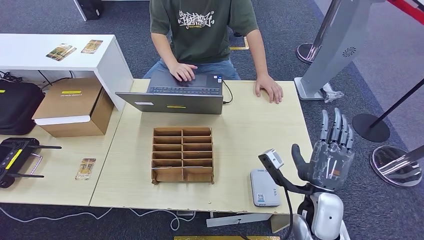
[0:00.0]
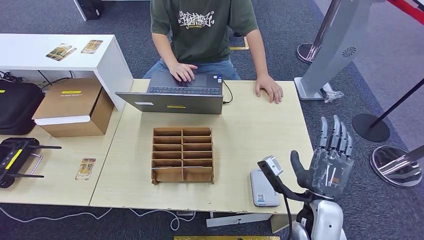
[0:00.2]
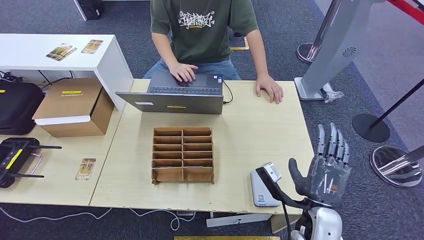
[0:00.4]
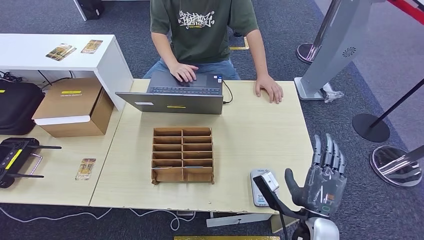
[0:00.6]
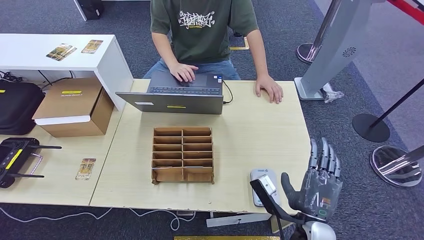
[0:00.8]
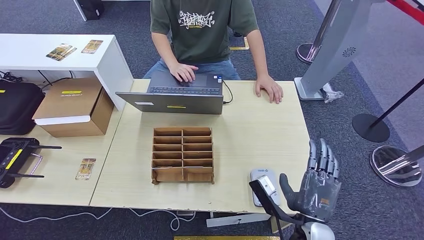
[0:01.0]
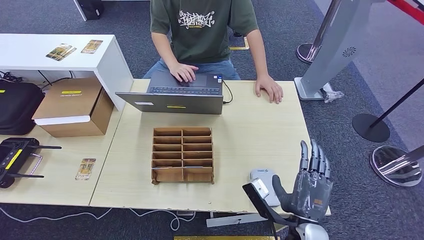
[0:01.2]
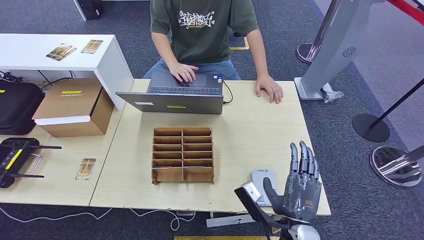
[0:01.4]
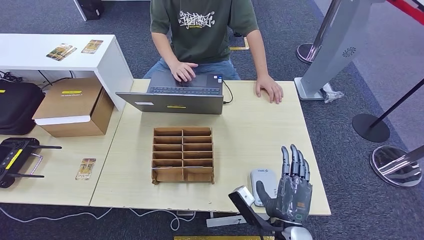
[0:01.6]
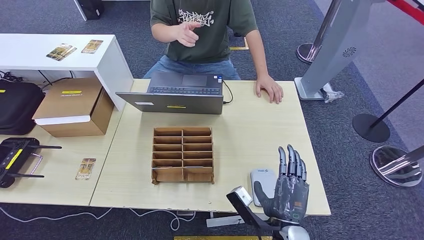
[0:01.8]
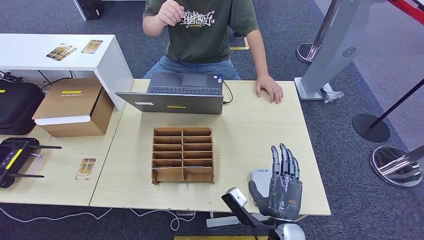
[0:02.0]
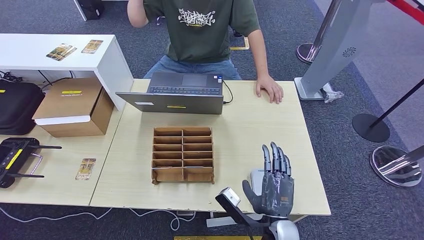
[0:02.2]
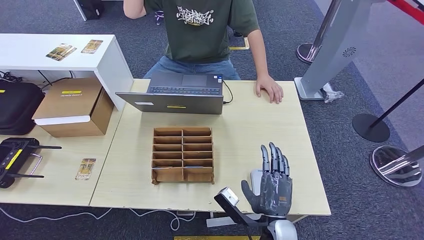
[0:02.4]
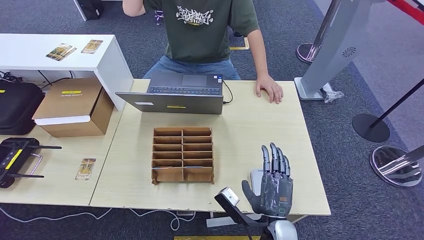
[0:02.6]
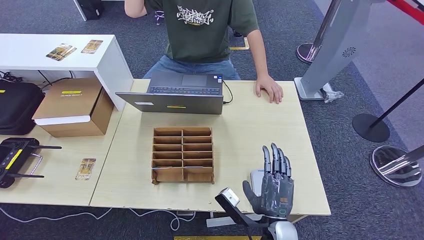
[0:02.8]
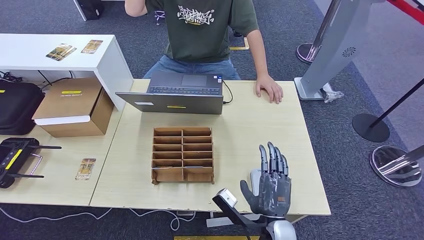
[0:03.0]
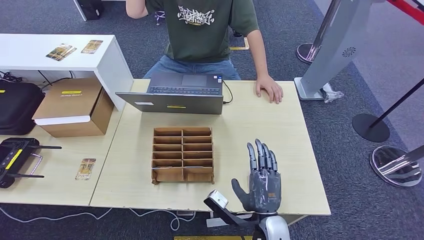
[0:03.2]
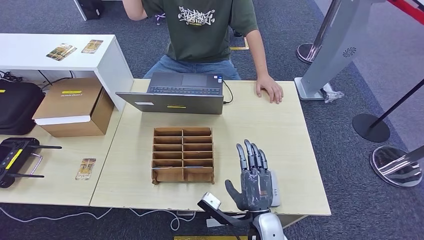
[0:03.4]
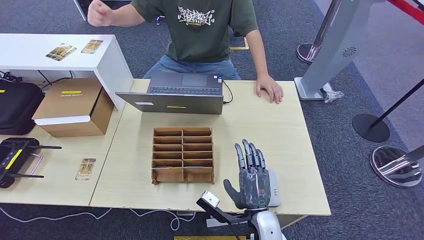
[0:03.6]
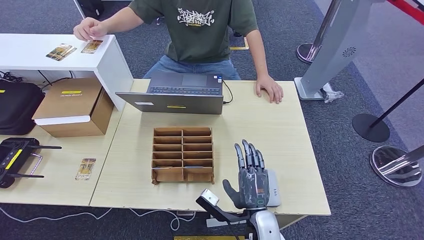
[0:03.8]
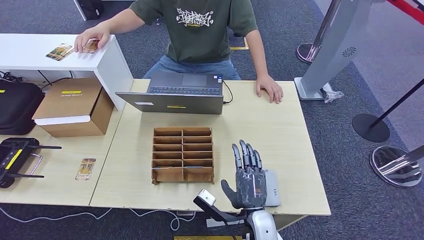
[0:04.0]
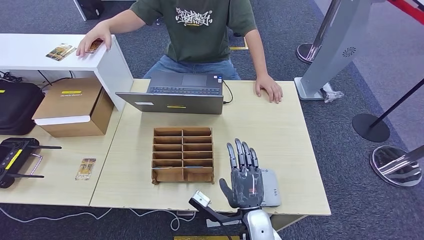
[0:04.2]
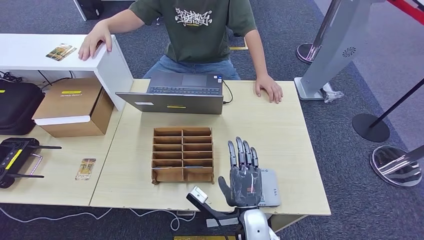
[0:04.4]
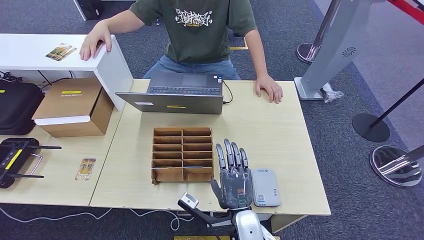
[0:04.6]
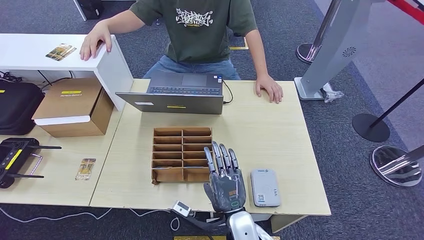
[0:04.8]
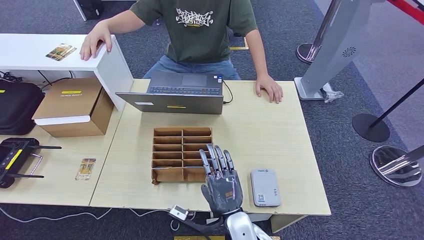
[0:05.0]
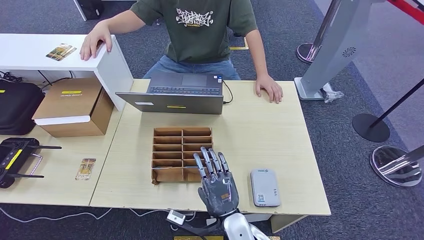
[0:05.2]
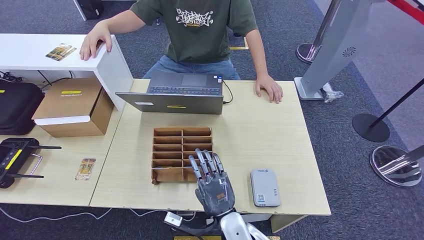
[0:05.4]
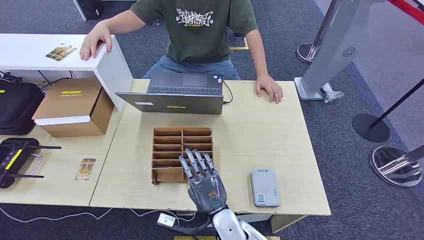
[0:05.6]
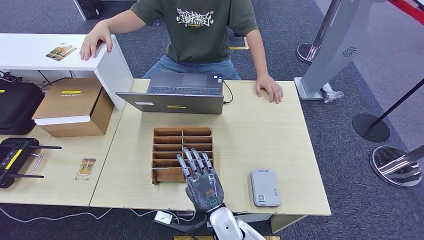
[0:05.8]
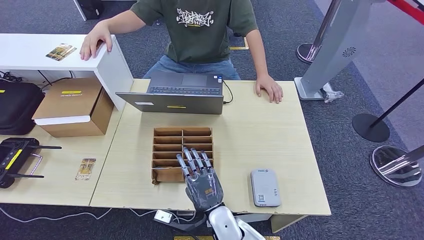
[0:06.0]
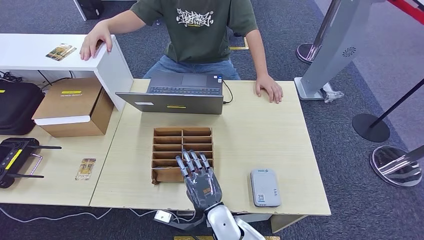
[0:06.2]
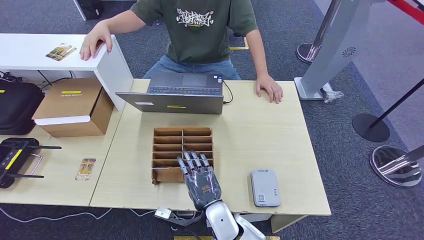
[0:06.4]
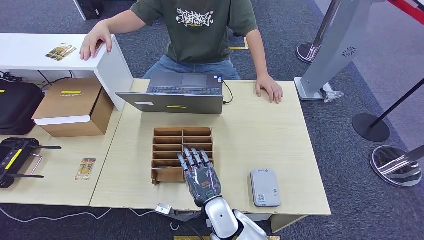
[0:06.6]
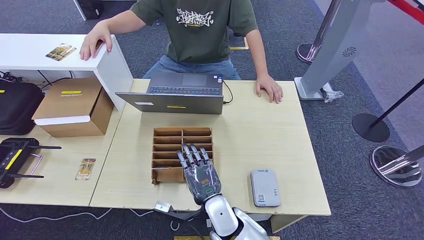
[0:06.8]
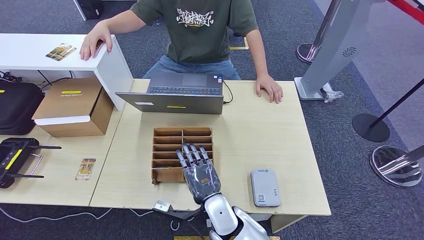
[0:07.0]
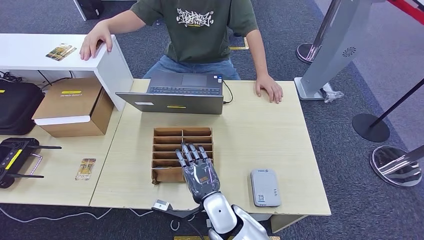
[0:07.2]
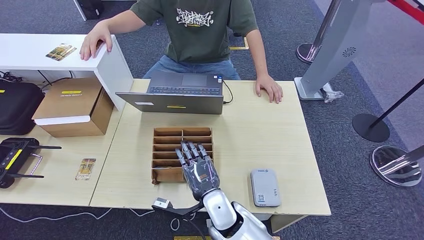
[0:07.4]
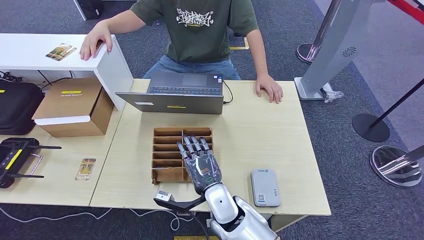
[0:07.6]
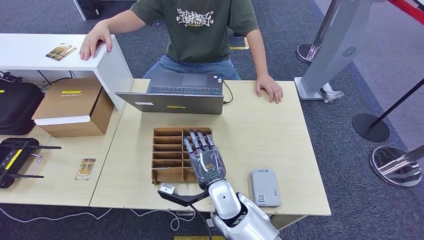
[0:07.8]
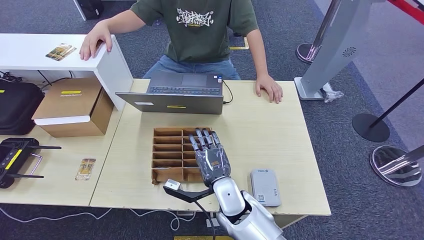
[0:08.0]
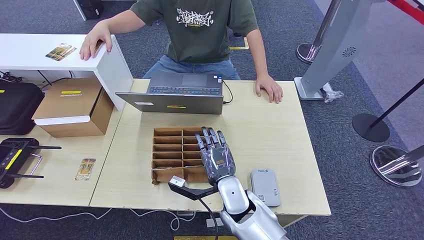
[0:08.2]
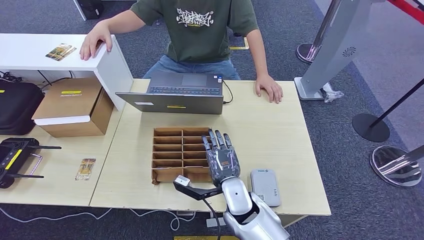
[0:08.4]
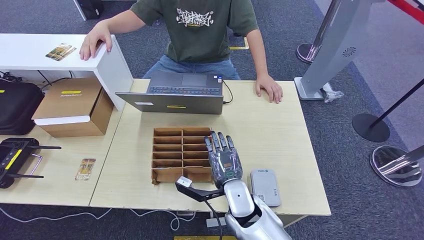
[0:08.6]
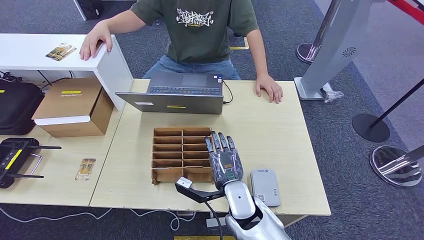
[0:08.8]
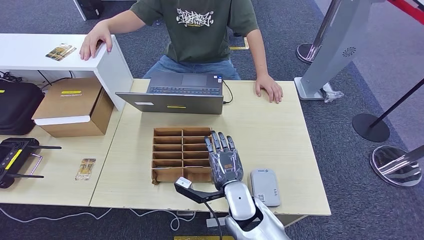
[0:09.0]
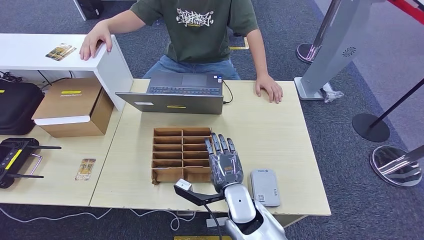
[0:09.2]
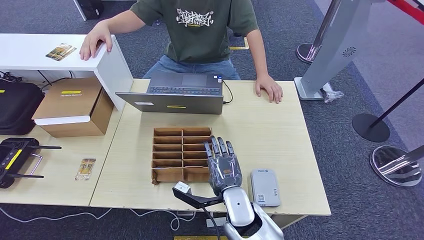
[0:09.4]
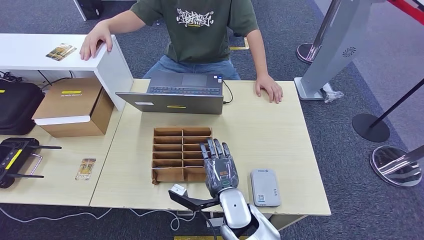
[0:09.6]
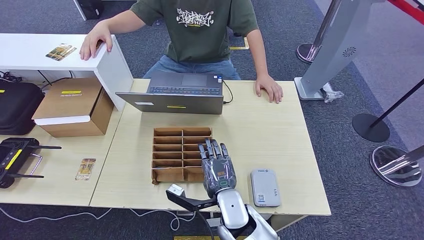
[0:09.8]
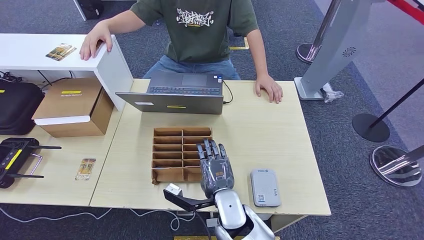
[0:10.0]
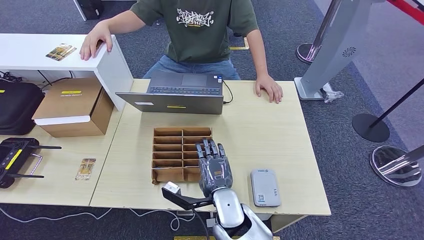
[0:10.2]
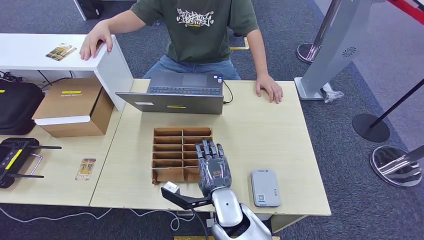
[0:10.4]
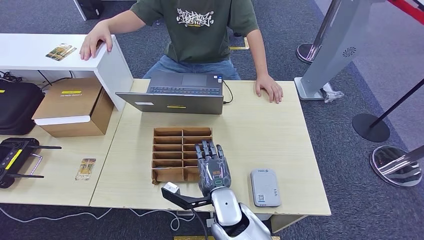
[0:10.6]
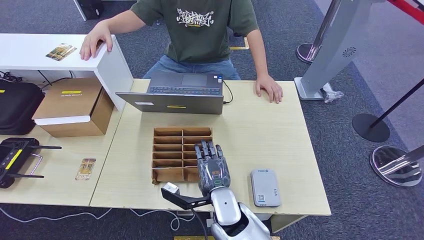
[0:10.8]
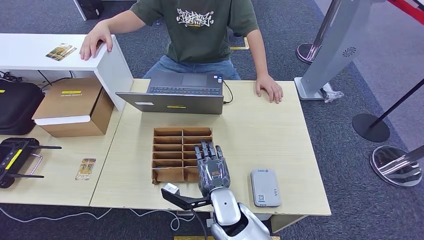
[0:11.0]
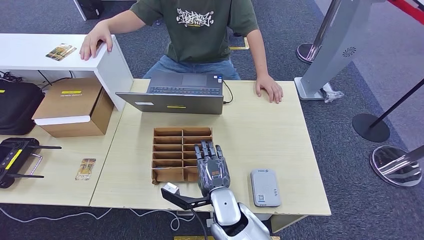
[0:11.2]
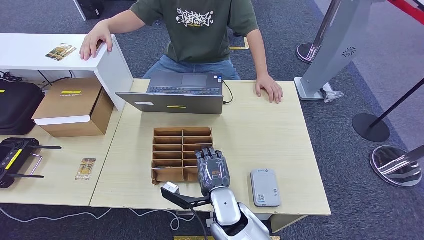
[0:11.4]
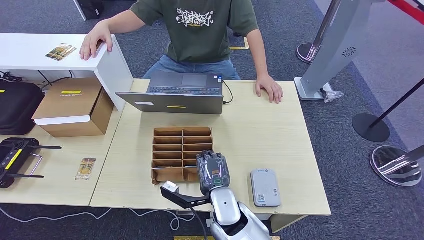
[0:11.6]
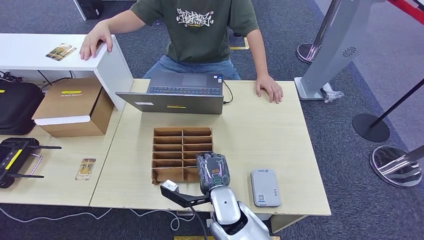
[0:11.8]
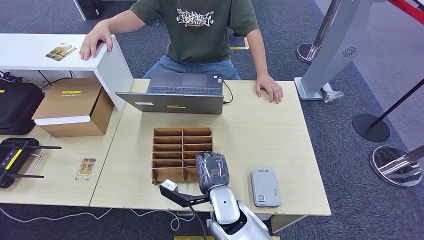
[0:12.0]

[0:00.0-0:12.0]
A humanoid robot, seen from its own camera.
0:00.0 to 0:01.6: The right hand moves backward and to the left, some 10 cm.
0:01.6 to 0:03.0: There are only small adjustments of the hands.
0:03.0 to 0:04.4: The right hand travels to the left by approximately 5 cm.
0:04.4 to 0:06.0: The right hand heads to the left, covering about 5 cm.
0:06.0 to 0:07.6: The right hand ends up roughly 5 cm from where it was.
0:07.6 to 0:10.4: There are only small adjustments of the hands.
0:10.4 to 0:12.0: Both hands stay about where they are.

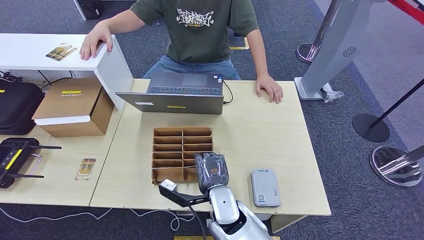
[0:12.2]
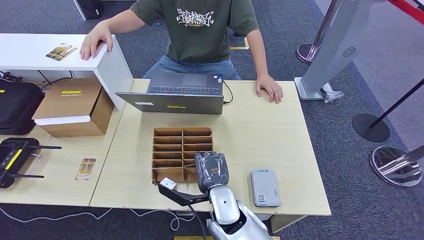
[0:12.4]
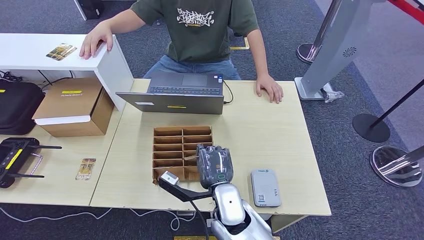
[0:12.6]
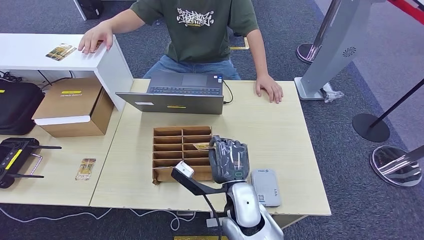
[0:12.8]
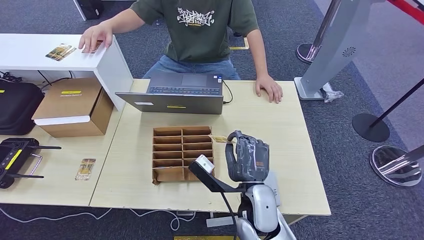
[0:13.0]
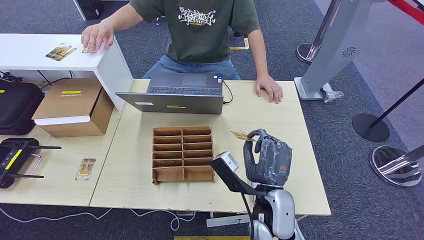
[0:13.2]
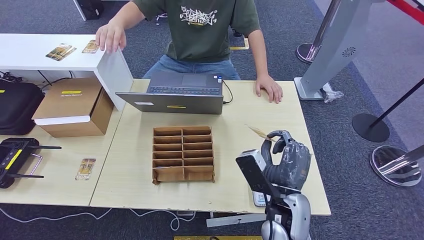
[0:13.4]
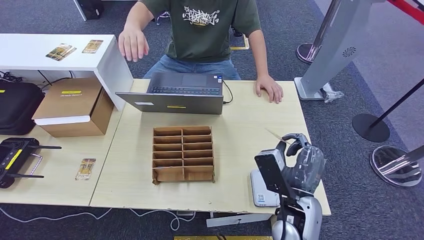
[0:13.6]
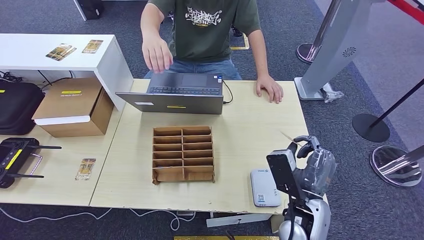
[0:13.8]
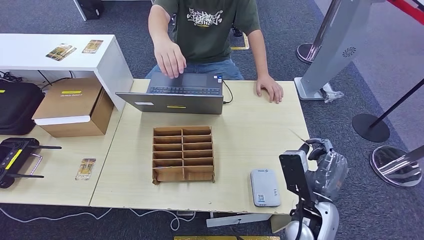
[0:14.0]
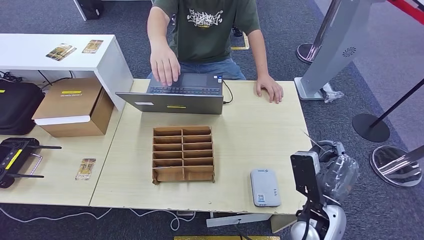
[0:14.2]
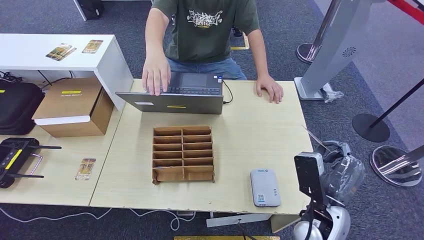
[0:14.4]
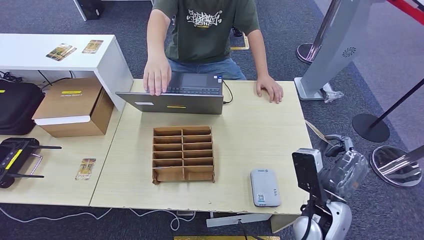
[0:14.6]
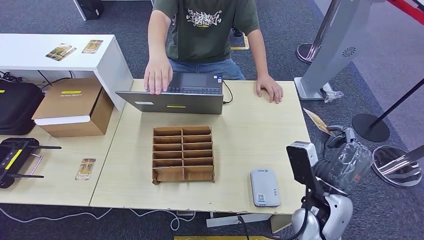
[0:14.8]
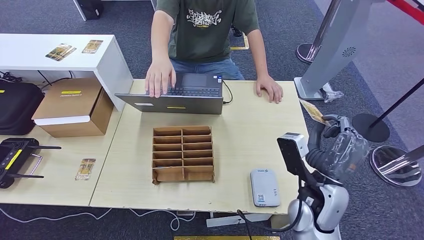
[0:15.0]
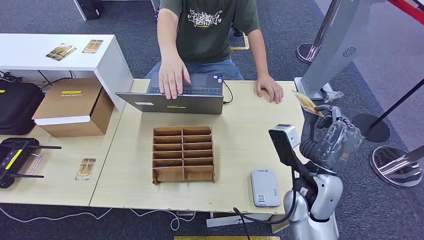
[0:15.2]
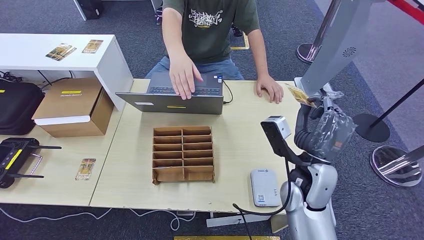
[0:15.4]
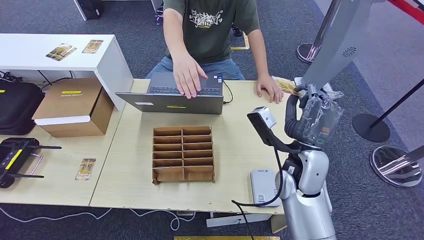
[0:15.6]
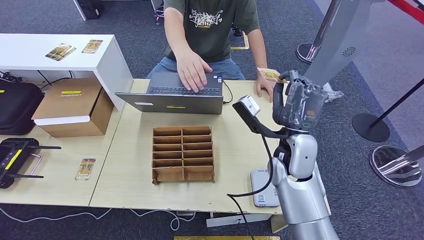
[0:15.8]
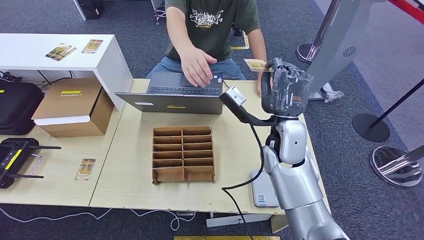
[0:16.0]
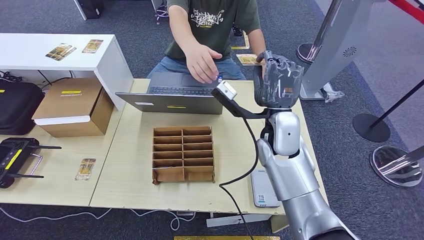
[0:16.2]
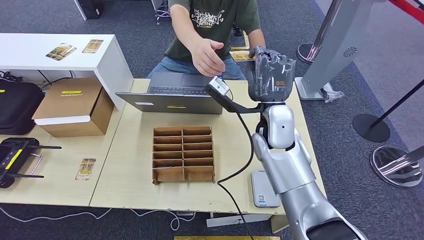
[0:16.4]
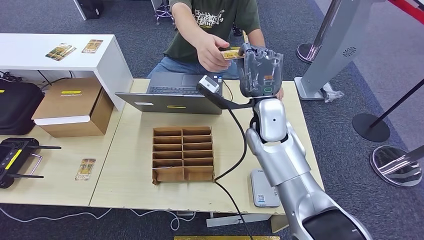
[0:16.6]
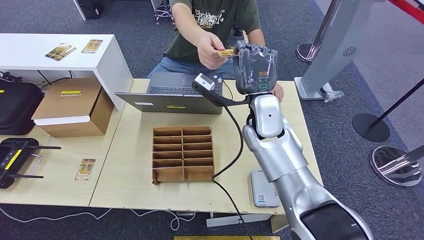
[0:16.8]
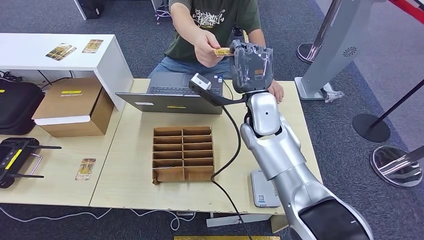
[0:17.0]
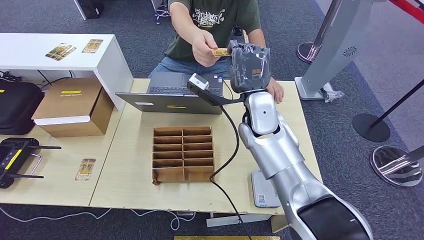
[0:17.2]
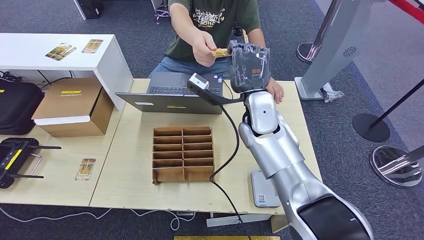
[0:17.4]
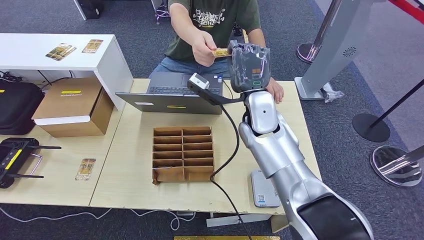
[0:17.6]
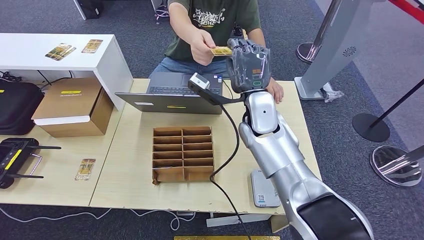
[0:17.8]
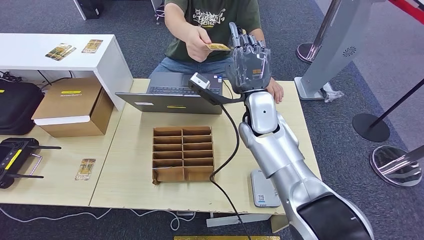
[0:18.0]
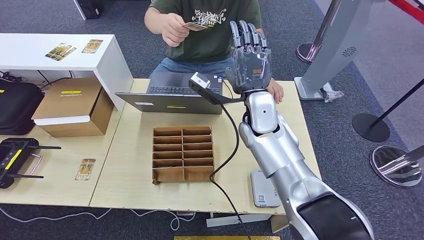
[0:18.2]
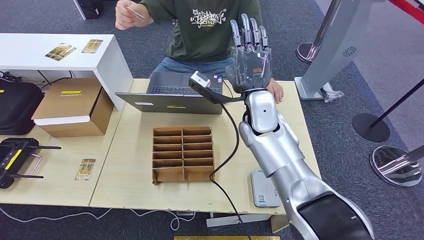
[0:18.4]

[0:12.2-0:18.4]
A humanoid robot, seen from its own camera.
Step, 0:13.0 to 0:18.4: Hand the room key to the person.
0:12.2 to 0:13.8: The right hand goes about 15 cm to the right.
0:13.8 to 0:15.4: The right hand heads forward and upward, covering approximately 10 cm.
0:15.4 to 0:16.8: The right hand goes some 15 cm forward, to the left and upward.
0:16.8 to 0:18.4: Neither hand changes place.
